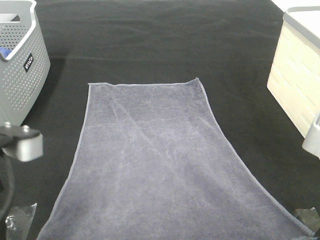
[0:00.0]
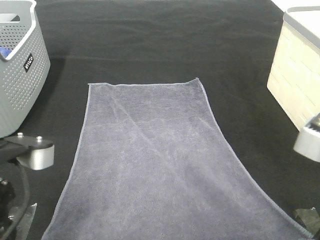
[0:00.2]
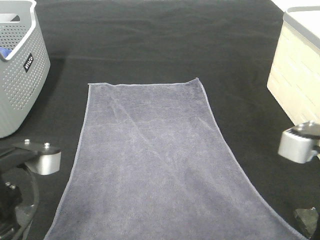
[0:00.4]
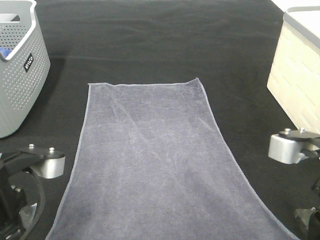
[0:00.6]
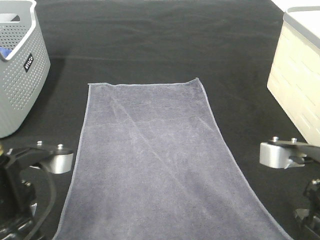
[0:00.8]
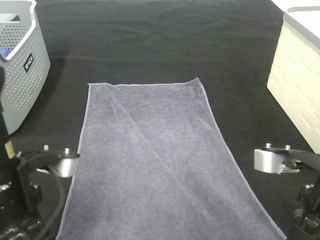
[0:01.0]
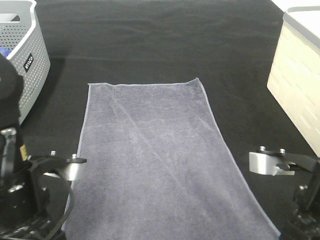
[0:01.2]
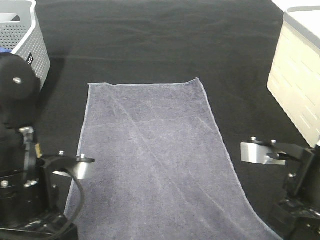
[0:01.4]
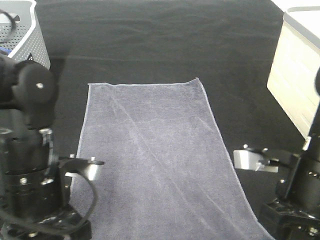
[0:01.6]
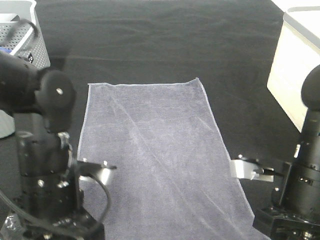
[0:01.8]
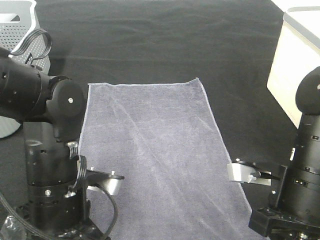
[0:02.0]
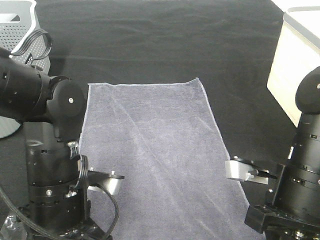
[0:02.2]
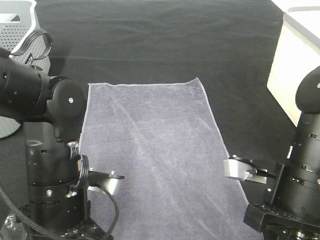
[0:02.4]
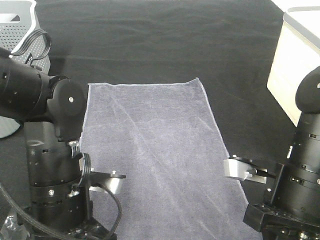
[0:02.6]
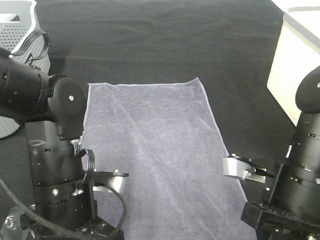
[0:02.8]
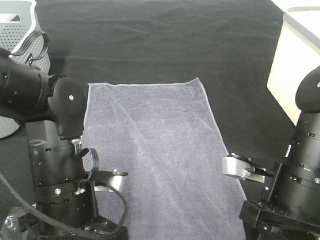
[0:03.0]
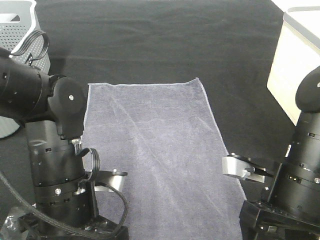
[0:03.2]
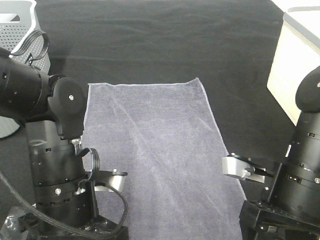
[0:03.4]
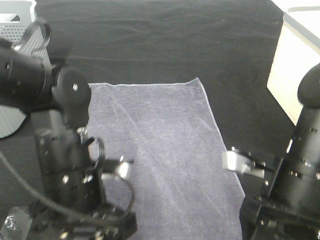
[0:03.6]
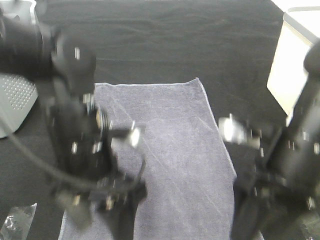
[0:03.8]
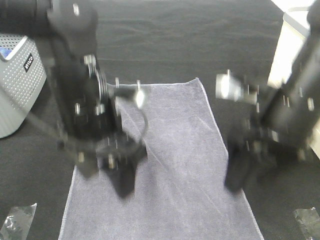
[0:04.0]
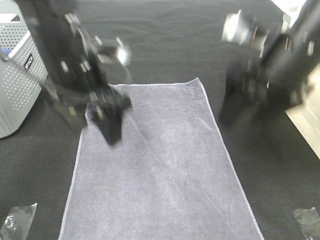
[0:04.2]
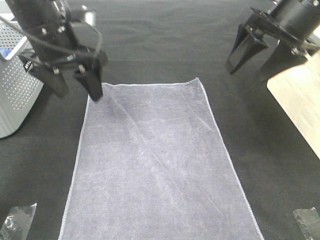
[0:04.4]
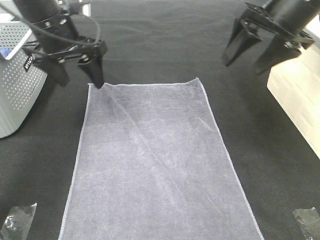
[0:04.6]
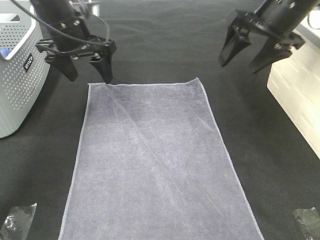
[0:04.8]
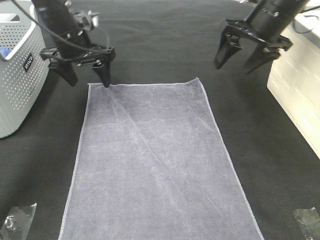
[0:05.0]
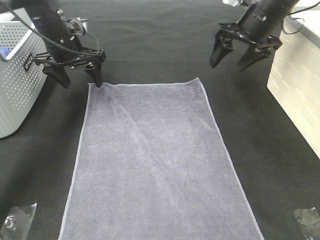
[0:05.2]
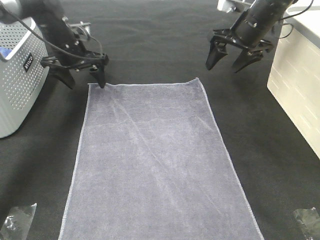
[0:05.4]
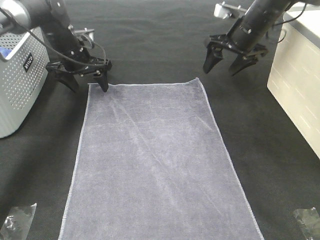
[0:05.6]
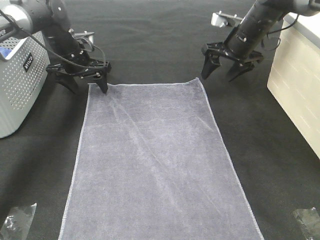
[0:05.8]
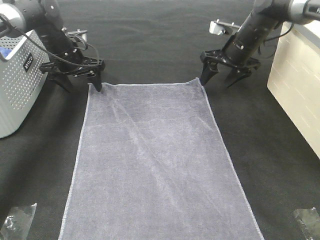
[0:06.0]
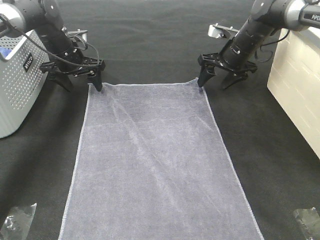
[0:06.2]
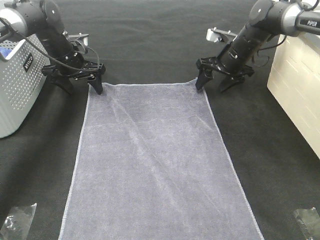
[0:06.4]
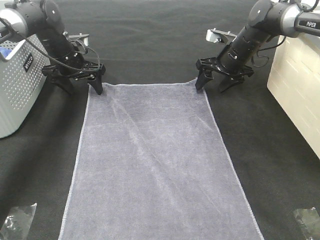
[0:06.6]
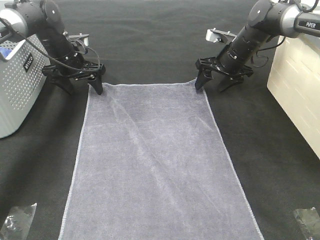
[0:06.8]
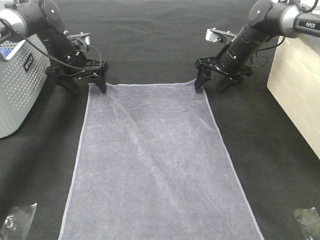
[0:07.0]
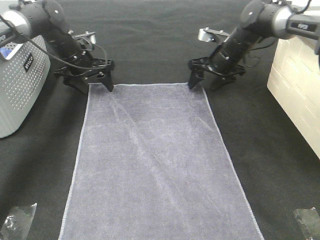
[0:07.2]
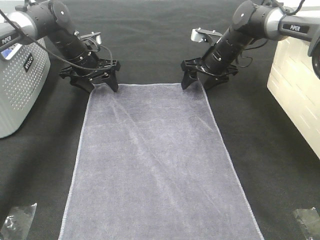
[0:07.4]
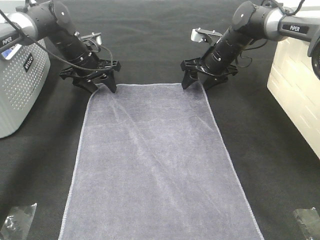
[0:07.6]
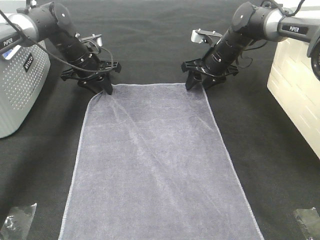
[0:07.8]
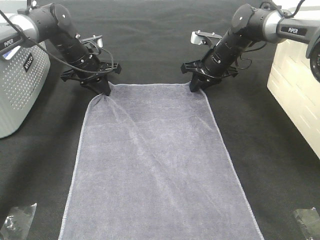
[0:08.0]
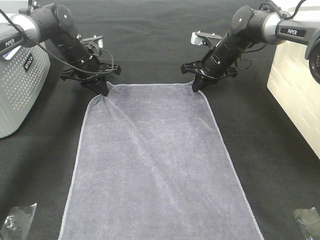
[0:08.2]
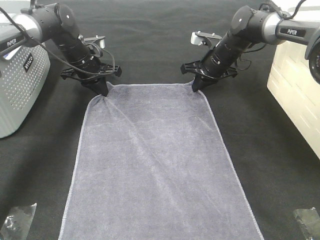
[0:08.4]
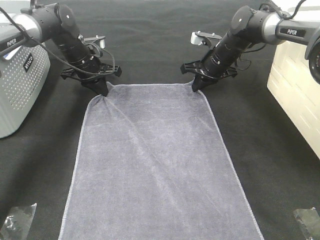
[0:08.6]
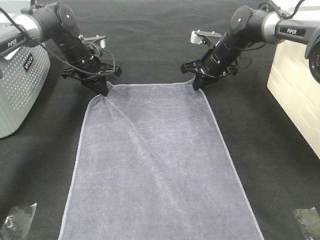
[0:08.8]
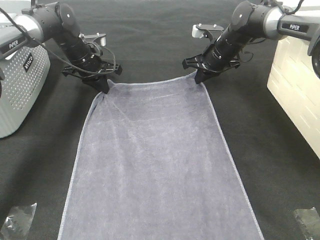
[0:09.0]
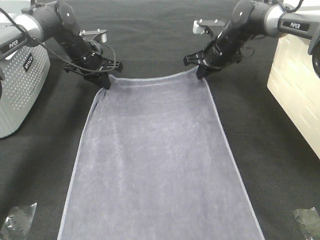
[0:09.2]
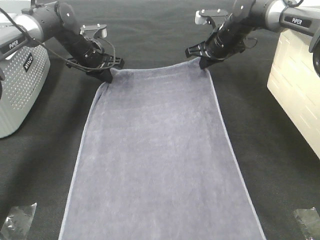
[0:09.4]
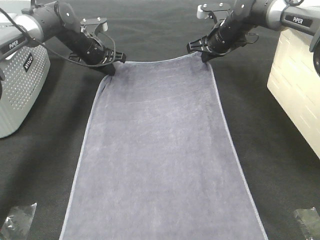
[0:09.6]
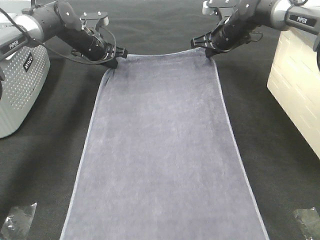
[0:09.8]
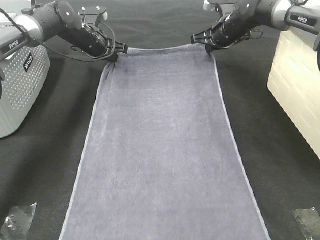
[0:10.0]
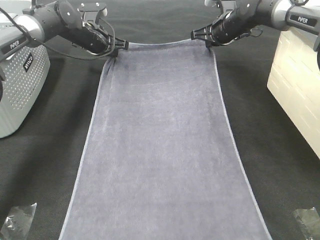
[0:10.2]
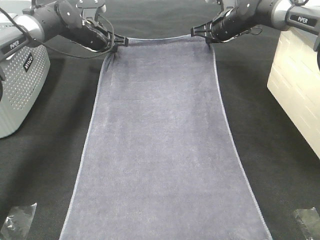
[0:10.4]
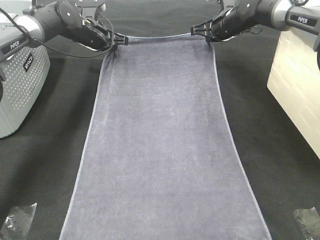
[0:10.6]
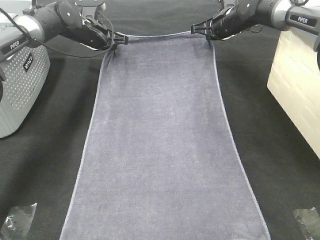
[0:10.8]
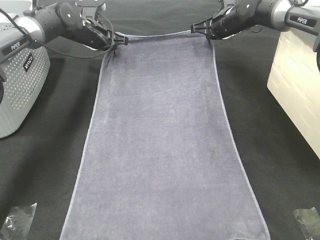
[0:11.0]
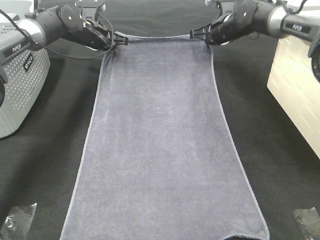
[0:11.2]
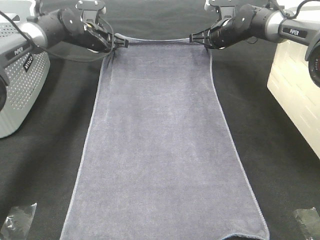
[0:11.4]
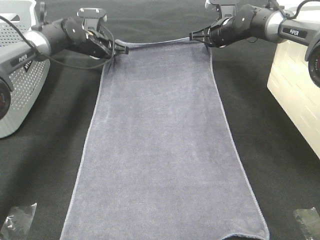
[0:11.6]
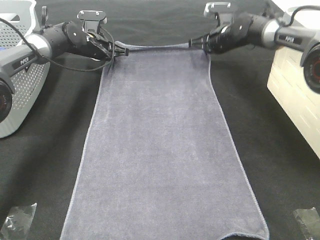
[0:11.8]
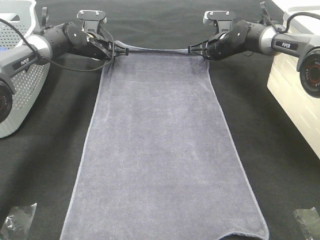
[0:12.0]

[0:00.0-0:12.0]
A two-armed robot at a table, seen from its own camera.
Task of the whole recording: Remove the towel and place it.
Step, 0:00.0 to 0:06.6: Left hand:adjust the gray towel.
Step, 0:00.0 to 0:06.6: Right hand:adjust the gray towel.
0:00.0 to 0:01.6: The grippers both shift downward and forward by approximately 10 cm.
0:01.6 to 0:03.0: The left gripper opens its fingers; the right gripper opens its fingers.
0:03.0 to 0:04.4: Both grippers travel together forward and upward, some 25 cm.
0:04.4 to 0:06.0: The grippers both shift forward and downward by roughly 20 cm.
0:06.0 to 0:07.6: The right gripper ends up roughly 5 cm from where it was.
0:07.6 to 0:09.0: The right gripper closes. The left gripper closes up.
0:09.0 to 0:10.4: The right gripper moves roughly 5 cm. Meanwhile the left gripper ends up about 5 cm from where it was.
0:10.4 to 0:12.0: The right gripper is displaced downward by about 5 cm.

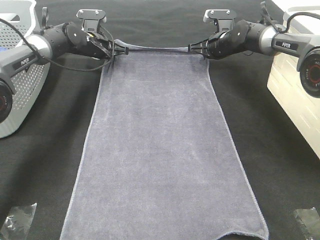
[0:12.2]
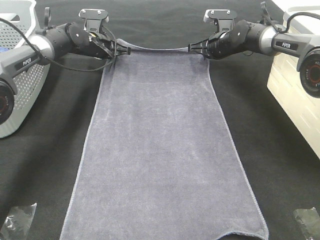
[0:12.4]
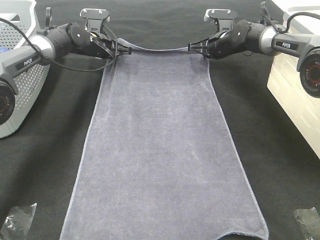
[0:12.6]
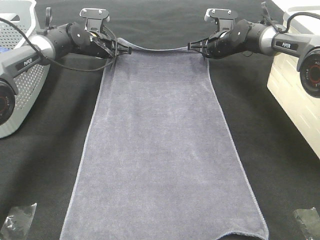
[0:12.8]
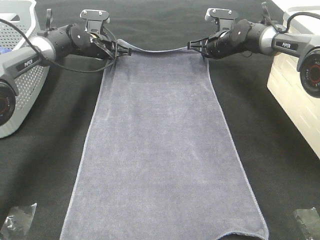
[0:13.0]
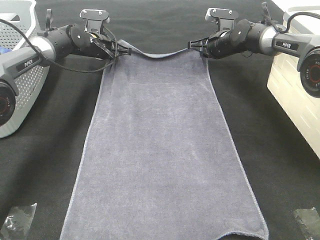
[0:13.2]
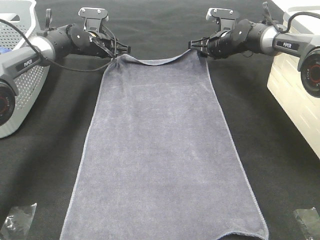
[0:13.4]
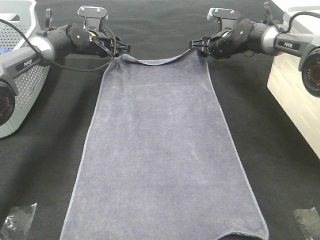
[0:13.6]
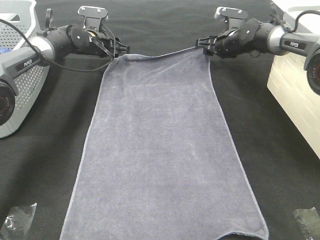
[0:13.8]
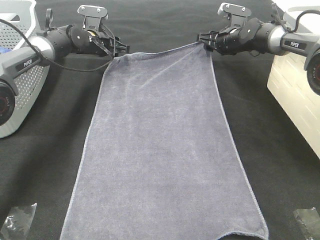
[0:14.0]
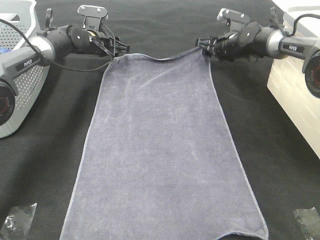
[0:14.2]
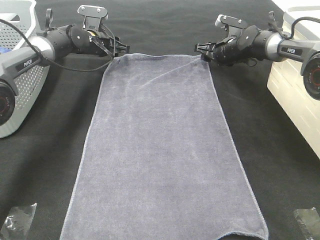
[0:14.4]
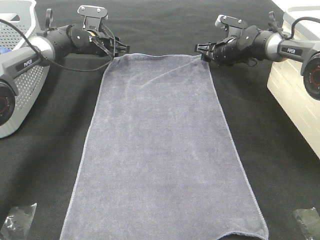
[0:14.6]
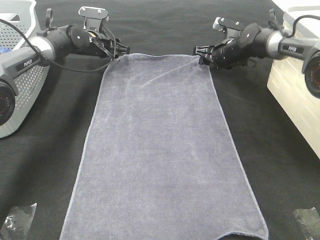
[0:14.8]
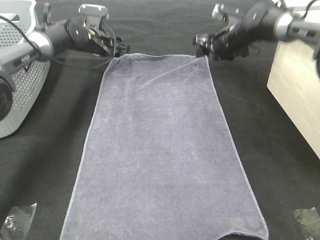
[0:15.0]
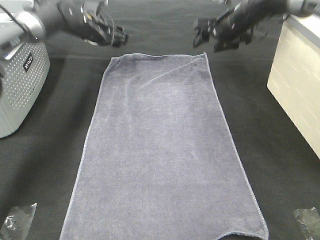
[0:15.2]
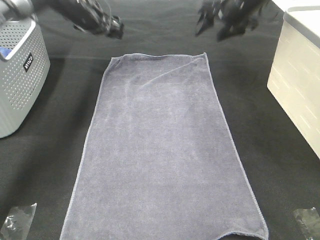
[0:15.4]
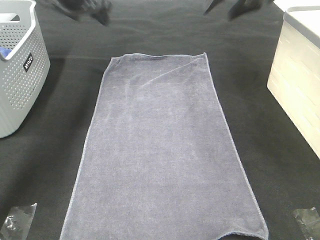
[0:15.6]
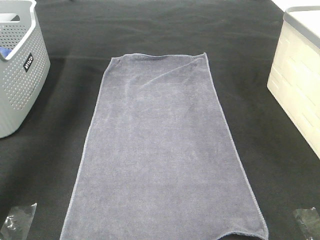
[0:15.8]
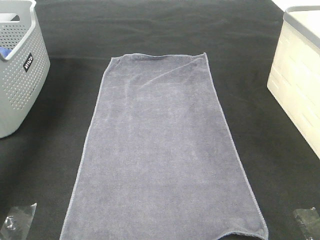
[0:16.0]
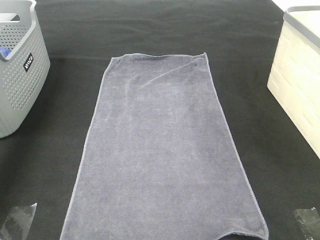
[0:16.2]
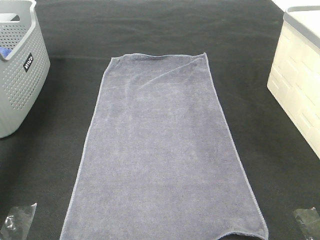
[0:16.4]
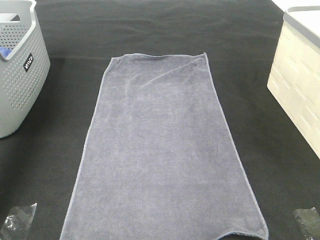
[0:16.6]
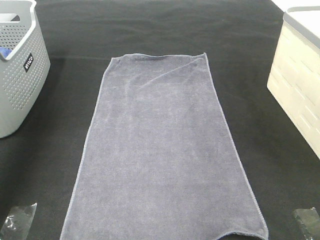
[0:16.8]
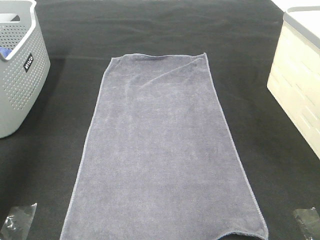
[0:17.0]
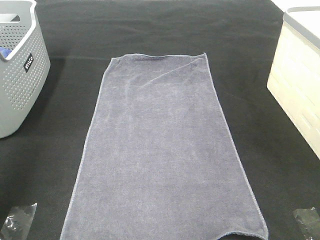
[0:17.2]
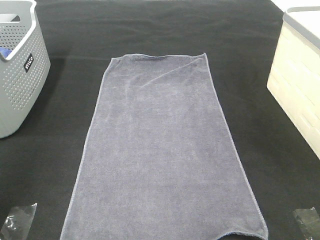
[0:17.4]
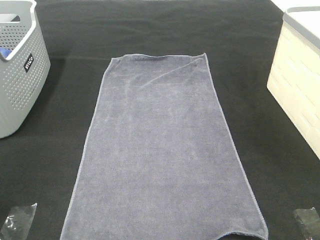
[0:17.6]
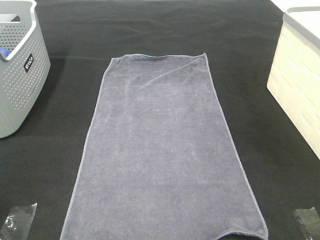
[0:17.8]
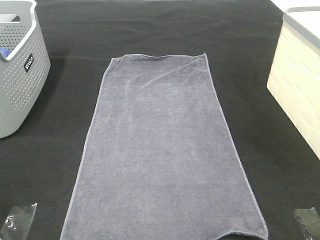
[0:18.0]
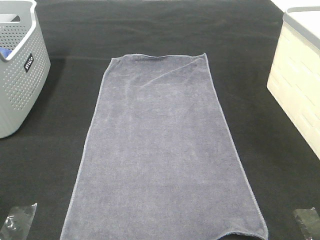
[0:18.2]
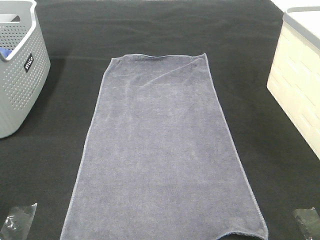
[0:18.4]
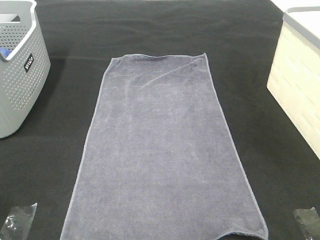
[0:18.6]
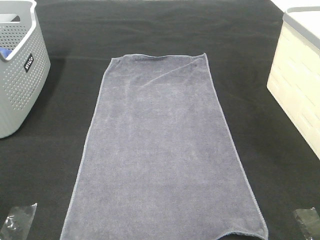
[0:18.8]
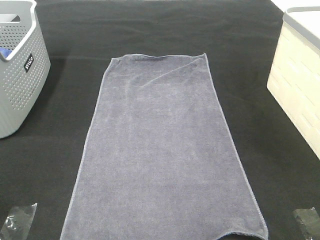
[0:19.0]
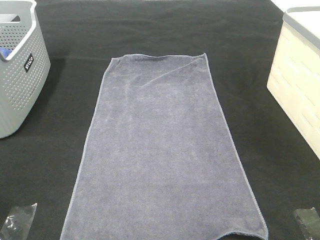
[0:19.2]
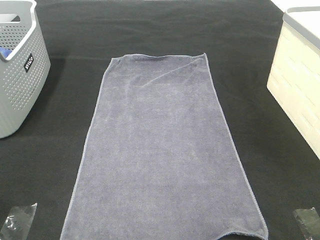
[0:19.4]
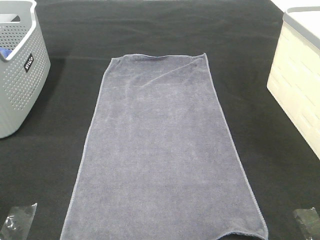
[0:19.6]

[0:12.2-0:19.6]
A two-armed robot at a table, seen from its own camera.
Task of the whole recording: Remove the towel and place it.
0:12.2 to 0:13.6: The right gripper opens. Meanwhile the left gripper opens.
0:13.6 to 0:15.2: Both grippers travel together upward, about 5 cm.
0:15.2 to 0:16.6: The left gripper heads upward, backward and to the left, covering approximately 40 cm; the right gripper moves backward and upward, about 30 cm.
0:16.6 to 0:18.2: The right gripper travels backward and downward by about 35 cm, while the left gripper travels backward by approximately 40 cm.
0:18.2 to 0:19.6: Both grippers stay put.

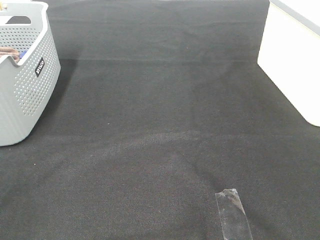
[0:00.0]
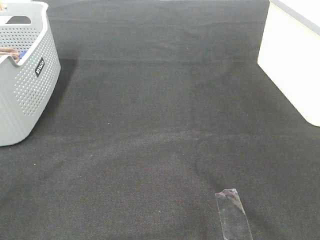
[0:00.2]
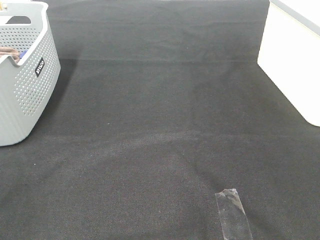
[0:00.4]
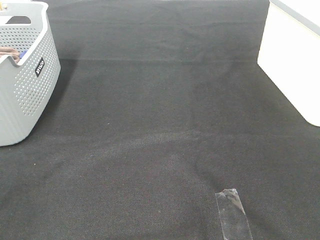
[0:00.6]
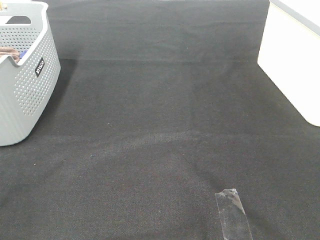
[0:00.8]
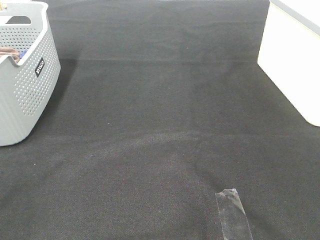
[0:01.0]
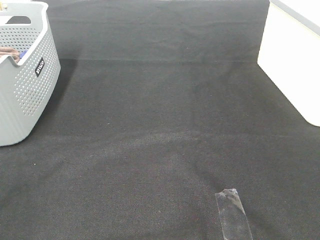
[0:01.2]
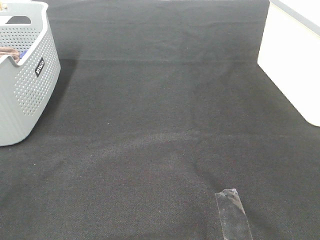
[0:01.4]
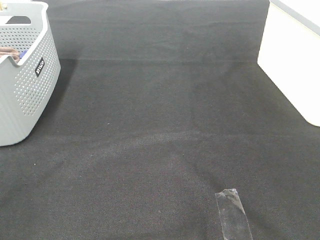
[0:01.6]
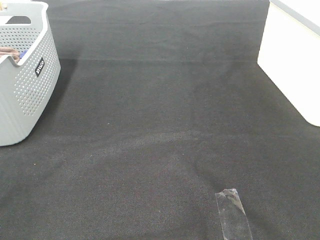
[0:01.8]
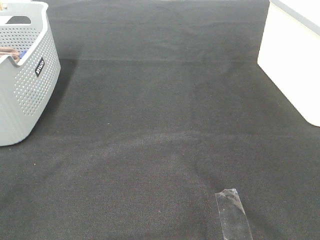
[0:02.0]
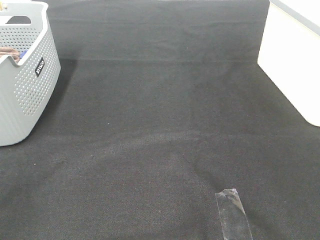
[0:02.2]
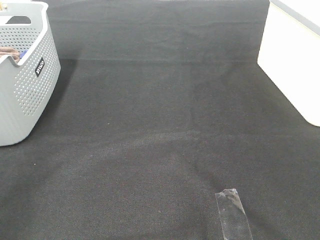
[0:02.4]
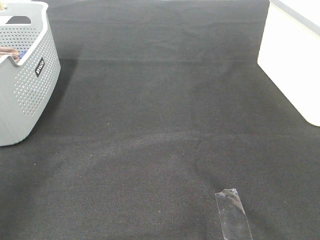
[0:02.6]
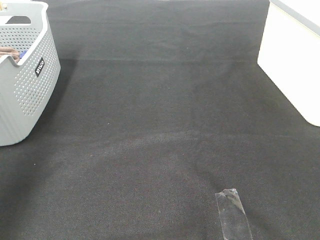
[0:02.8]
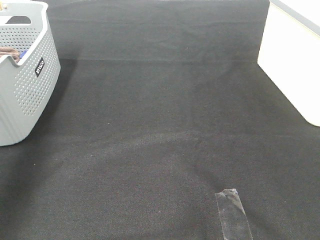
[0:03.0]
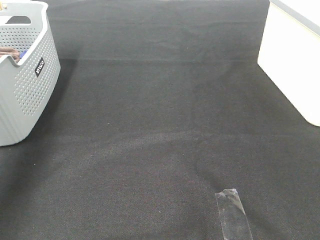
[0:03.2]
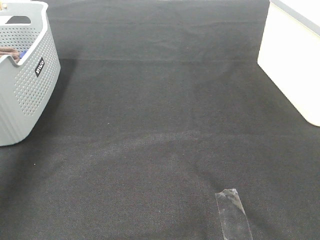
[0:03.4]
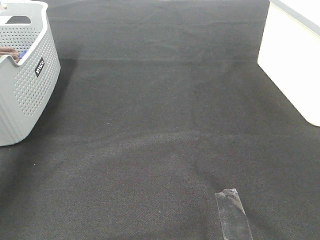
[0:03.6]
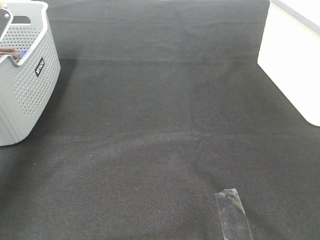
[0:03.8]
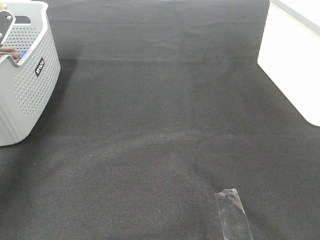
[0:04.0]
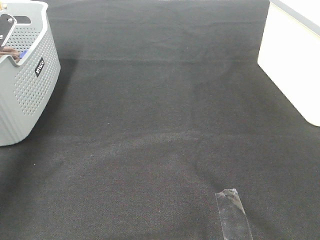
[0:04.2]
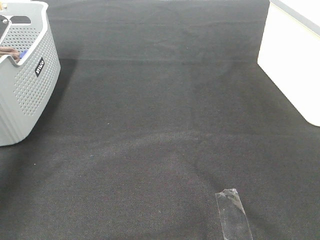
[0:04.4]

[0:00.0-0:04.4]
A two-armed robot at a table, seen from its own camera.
Task of the whole recording: Remove the towel and place it.
0:00.0 to 0:01.4: Both grippers stay about where they are.
0:01.4 to 0:03.0: The left gripper shifts some 30 cm forward and upward.
